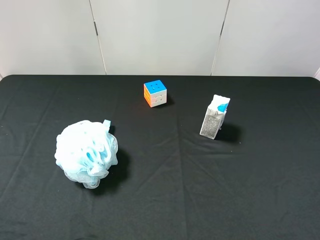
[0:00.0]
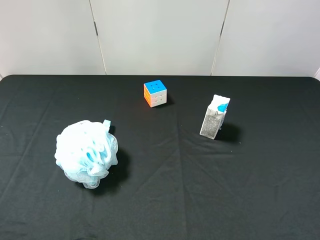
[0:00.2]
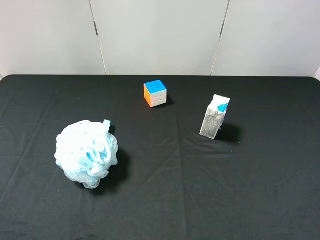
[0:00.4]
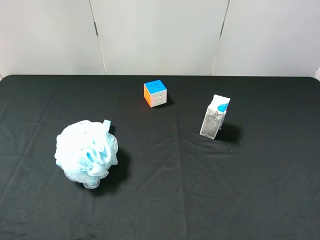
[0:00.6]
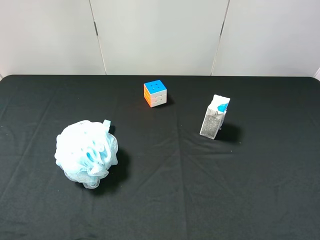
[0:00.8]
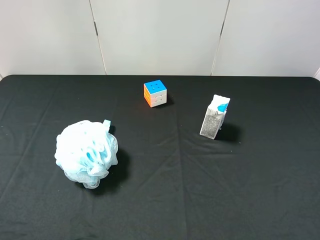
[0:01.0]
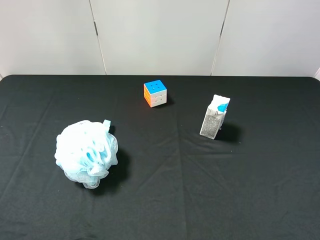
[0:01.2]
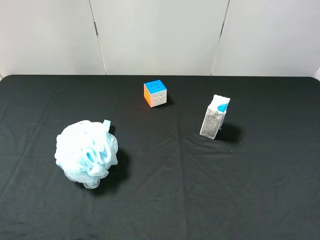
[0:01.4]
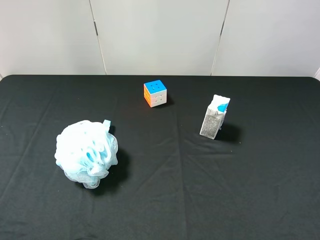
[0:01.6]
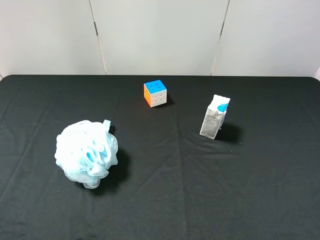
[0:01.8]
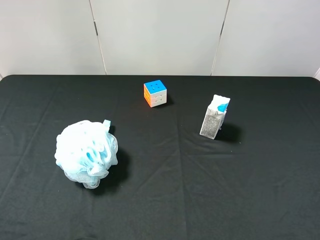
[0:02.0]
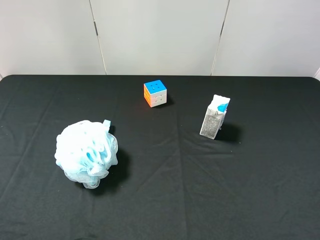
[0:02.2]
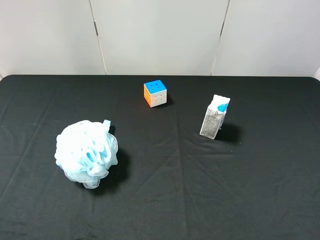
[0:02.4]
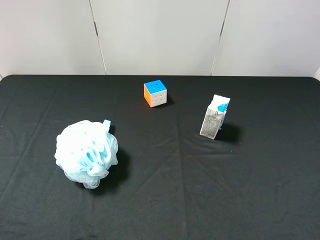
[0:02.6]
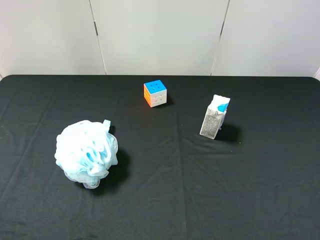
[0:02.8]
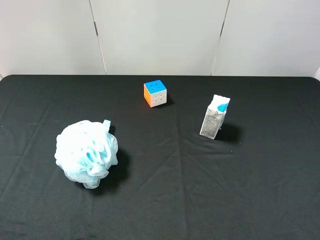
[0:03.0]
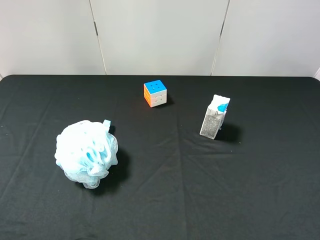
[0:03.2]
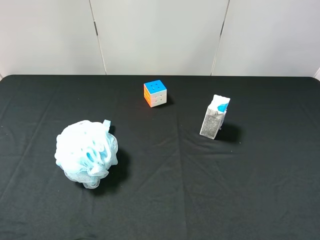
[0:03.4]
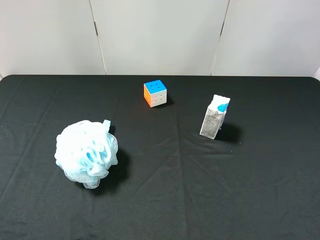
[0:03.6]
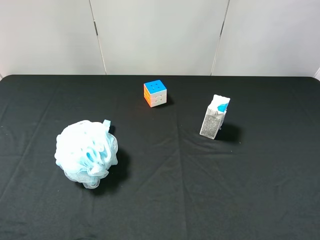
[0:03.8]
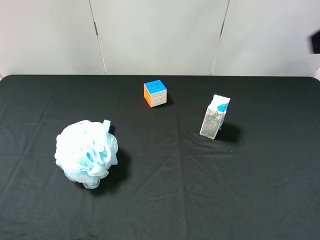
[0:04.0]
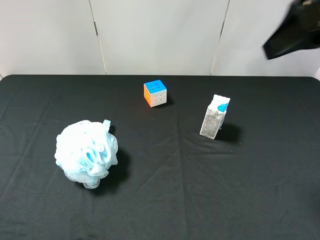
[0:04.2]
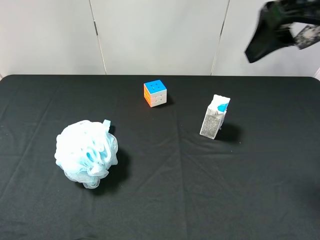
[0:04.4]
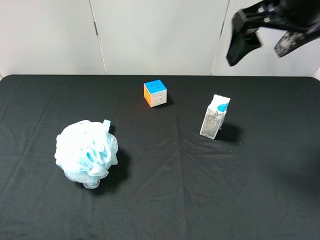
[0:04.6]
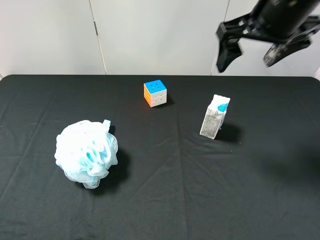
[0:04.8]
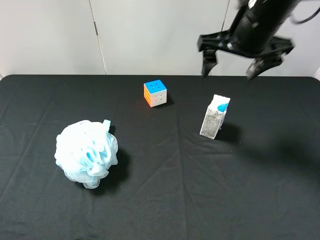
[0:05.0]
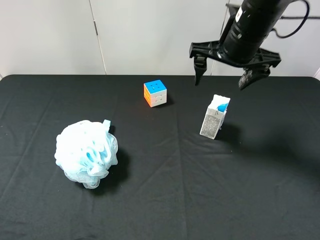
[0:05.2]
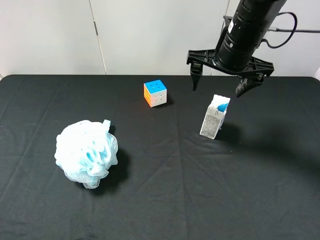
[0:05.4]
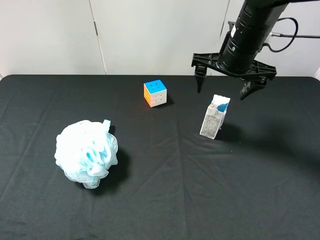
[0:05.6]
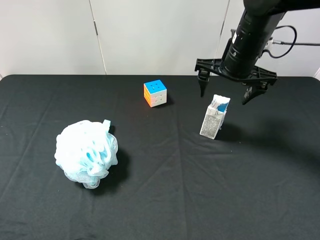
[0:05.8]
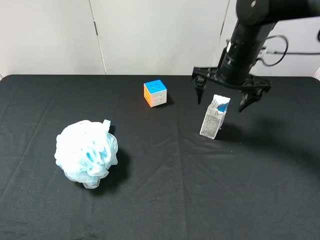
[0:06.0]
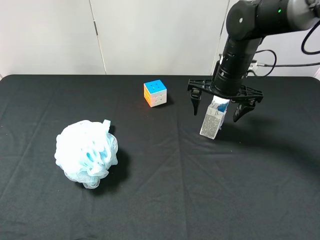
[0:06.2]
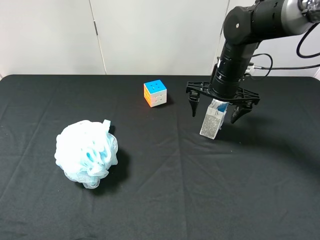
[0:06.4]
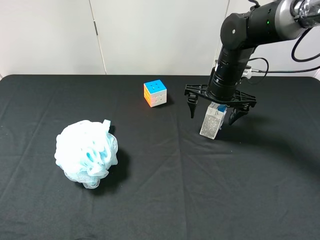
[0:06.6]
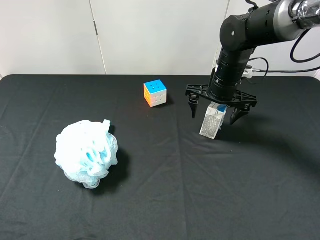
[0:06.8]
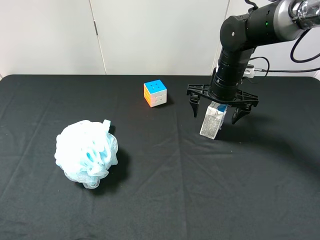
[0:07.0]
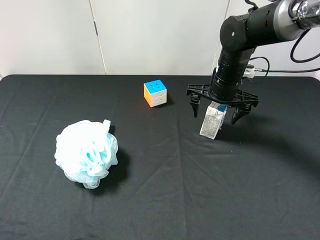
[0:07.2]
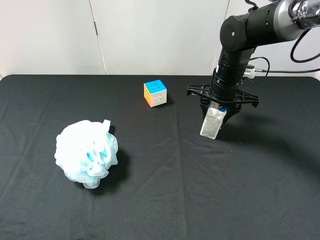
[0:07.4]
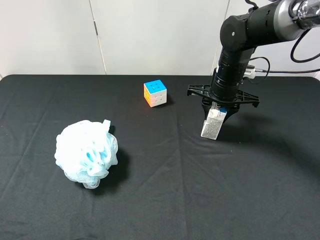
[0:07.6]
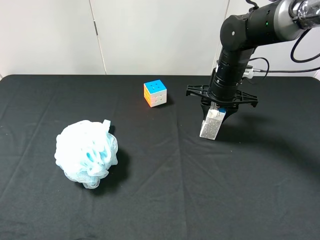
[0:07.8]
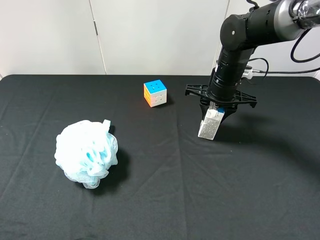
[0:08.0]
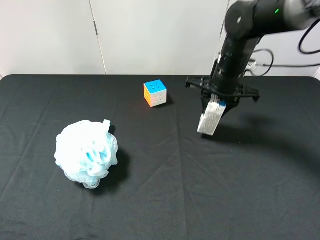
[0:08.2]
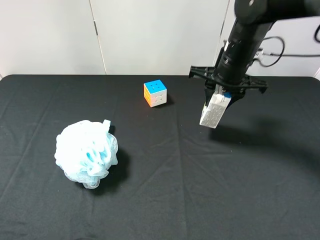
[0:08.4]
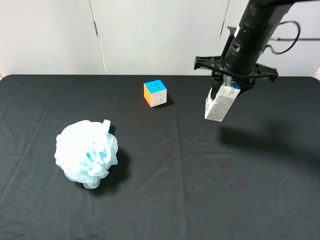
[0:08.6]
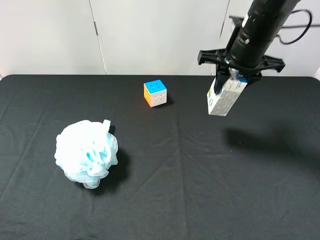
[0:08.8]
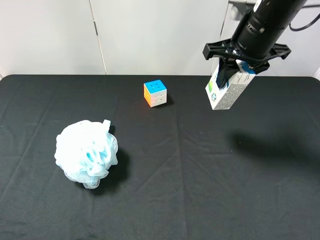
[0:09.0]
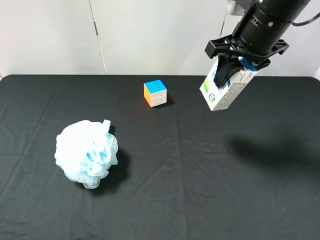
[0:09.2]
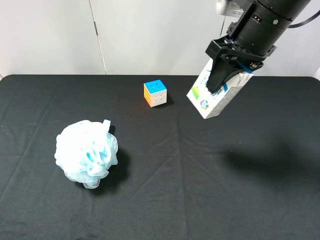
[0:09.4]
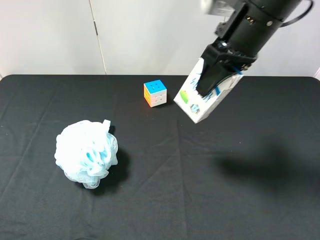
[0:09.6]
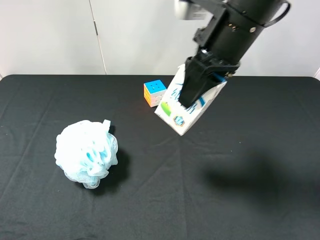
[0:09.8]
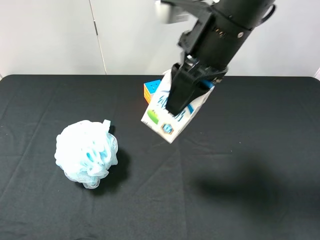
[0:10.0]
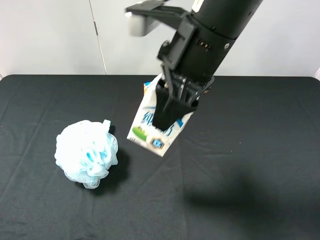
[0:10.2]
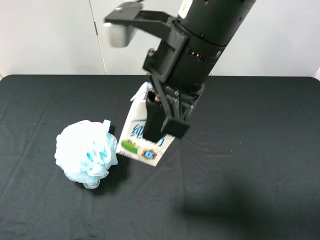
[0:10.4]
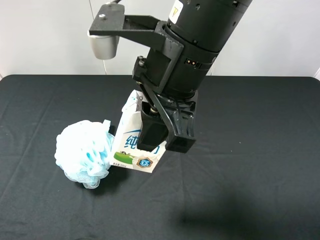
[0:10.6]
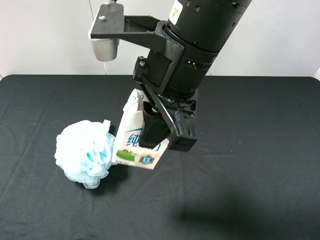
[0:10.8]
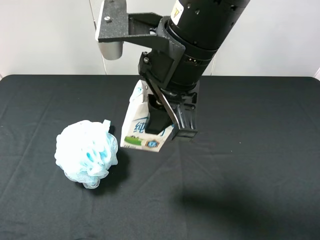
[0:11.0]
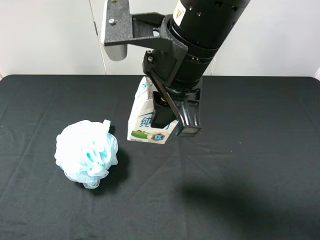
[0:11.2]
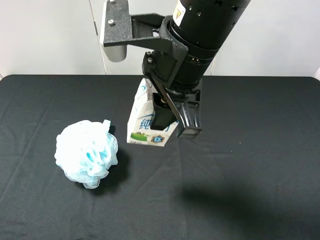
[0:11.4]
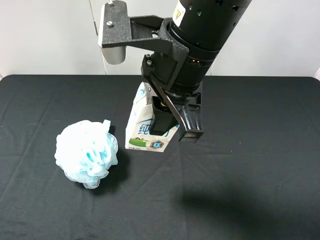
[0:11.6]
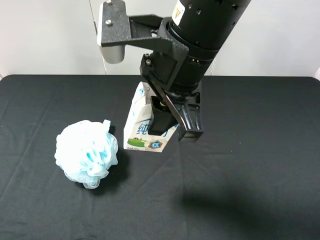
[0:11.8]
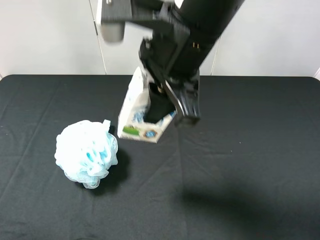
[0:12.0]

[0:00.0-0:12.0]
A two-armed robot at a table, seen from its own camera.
Task of the whole recording: use the right gripper to pick up the item and transfer it from the right gripper to the left gripper.
Step, 0:00.0 to 0:07.6: Use the right gripper to grab the milk on the right side of the table.
0:00.0 to 0:01.6: Both grippers stay about where they are.
0:03.0 to 0:04.4: The right gripper heads forward, to the left and upward, covering some 25 cm.
0:04.4 to 0:06.0: The right gripper moves downward and forward, roughly 20 cm.
0:06.0 to 0:07.6: The right gripper closes its fingers.
0:07.6 to 0:09.0: The right gripper goes roughly 15 cm upward.
0:09.0 to 0:10.4: The right gripper heads to the left and backward, covering some 20 cm.
0:10.4 to 0:12.0: The left gripper shifts some 5 cm forward.

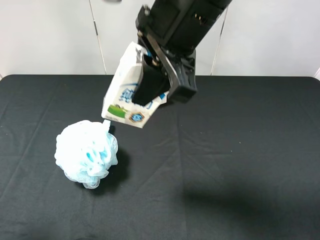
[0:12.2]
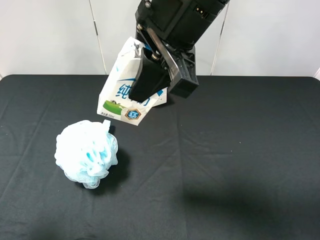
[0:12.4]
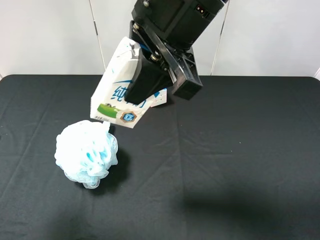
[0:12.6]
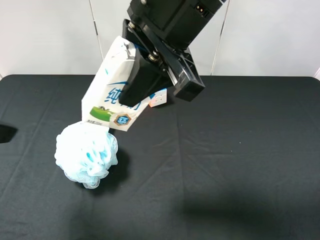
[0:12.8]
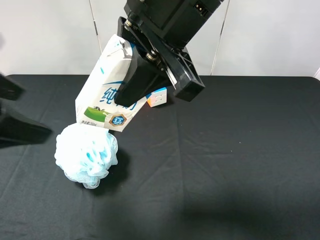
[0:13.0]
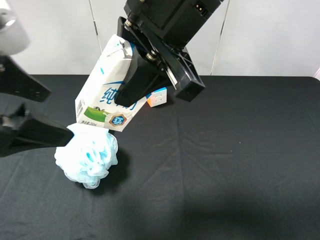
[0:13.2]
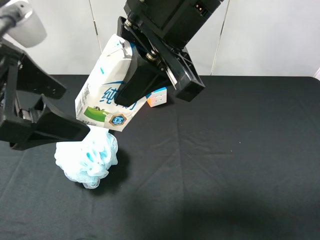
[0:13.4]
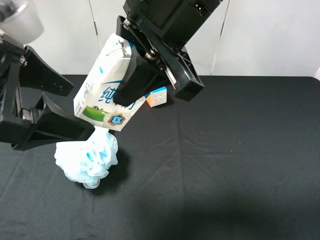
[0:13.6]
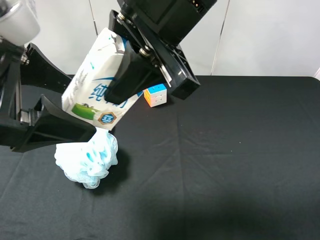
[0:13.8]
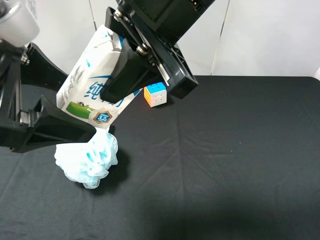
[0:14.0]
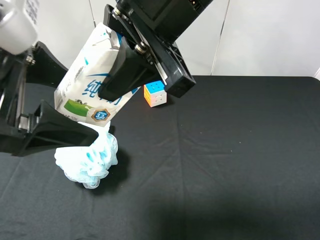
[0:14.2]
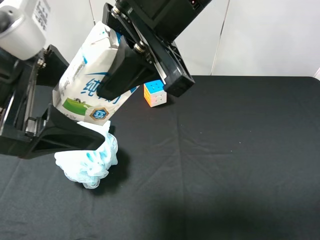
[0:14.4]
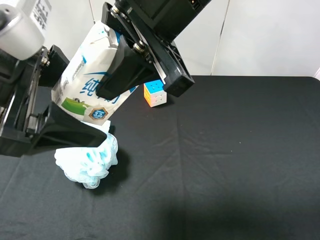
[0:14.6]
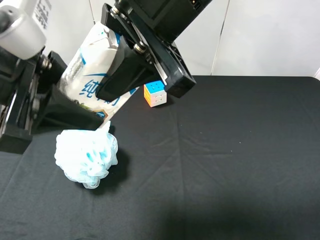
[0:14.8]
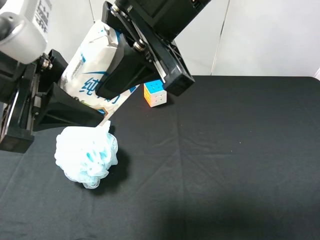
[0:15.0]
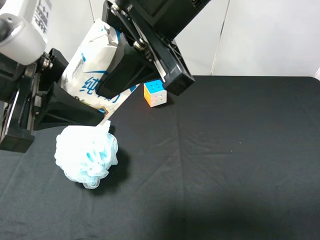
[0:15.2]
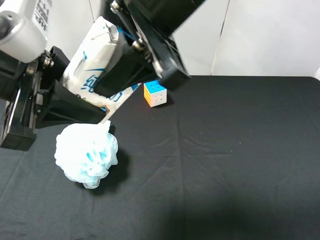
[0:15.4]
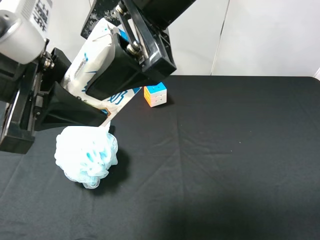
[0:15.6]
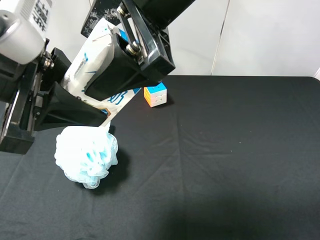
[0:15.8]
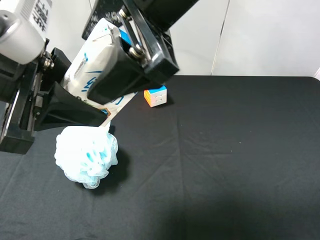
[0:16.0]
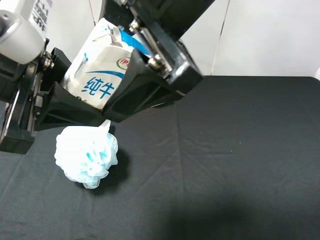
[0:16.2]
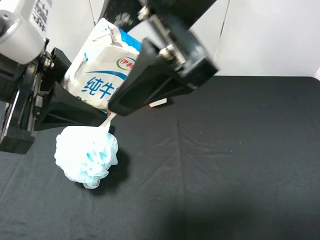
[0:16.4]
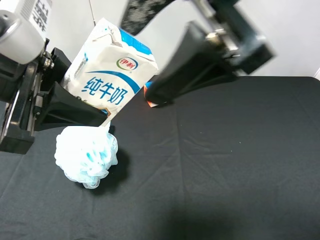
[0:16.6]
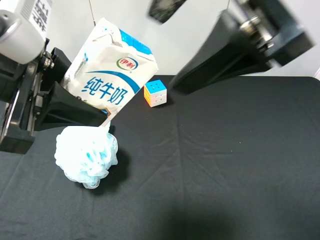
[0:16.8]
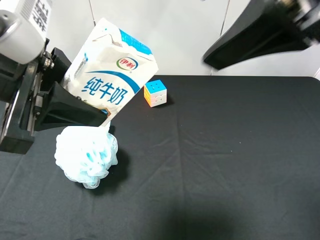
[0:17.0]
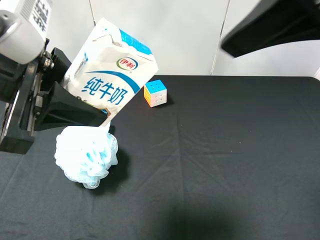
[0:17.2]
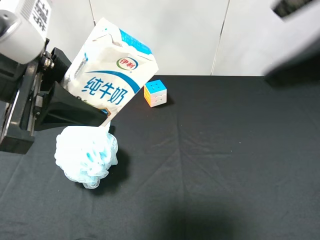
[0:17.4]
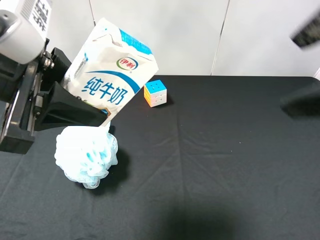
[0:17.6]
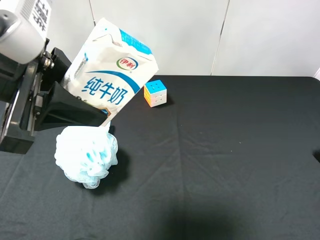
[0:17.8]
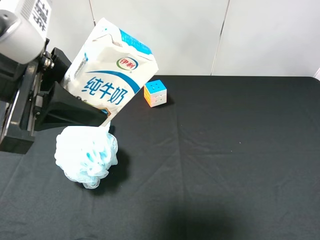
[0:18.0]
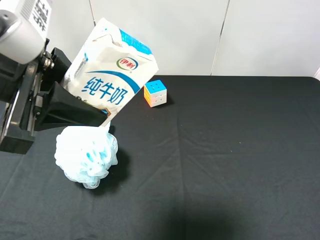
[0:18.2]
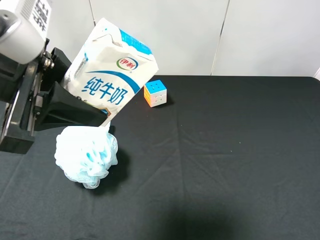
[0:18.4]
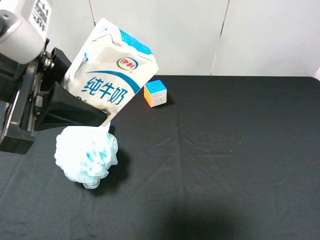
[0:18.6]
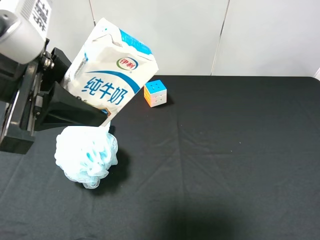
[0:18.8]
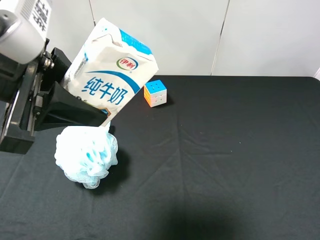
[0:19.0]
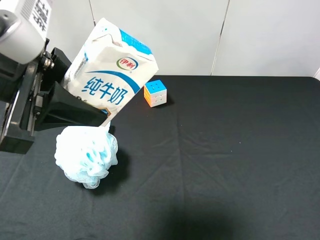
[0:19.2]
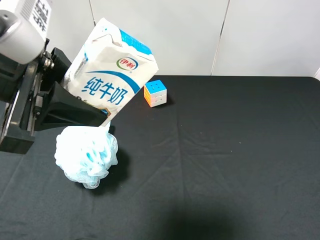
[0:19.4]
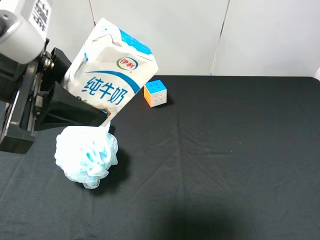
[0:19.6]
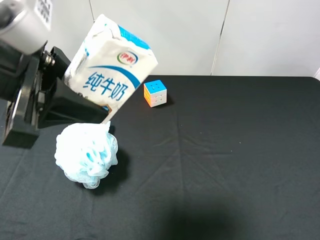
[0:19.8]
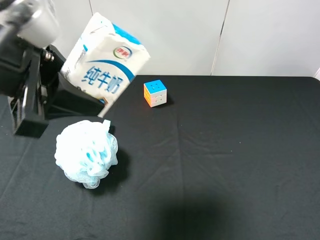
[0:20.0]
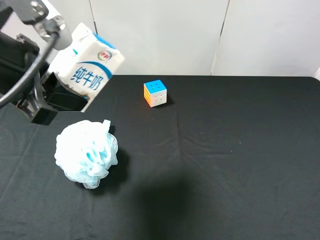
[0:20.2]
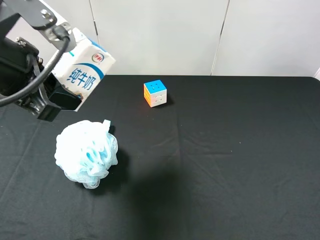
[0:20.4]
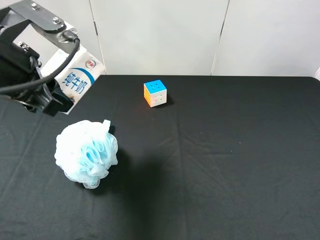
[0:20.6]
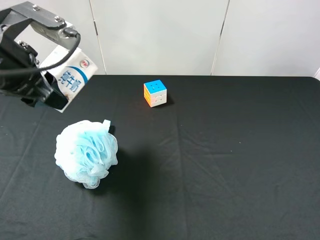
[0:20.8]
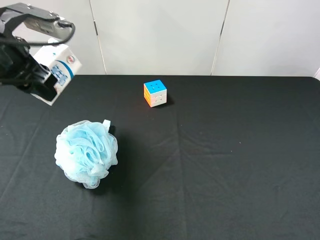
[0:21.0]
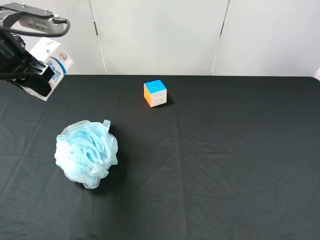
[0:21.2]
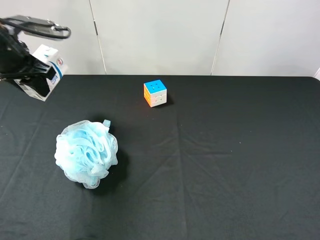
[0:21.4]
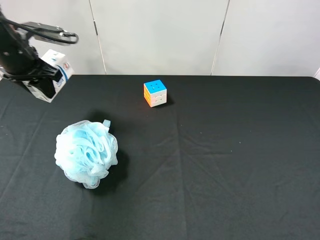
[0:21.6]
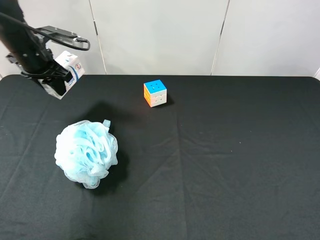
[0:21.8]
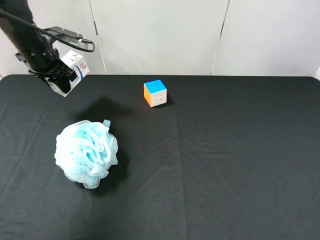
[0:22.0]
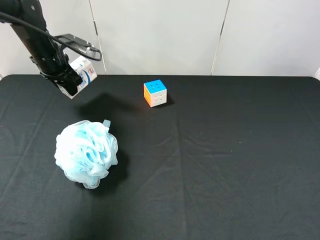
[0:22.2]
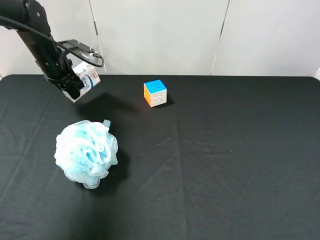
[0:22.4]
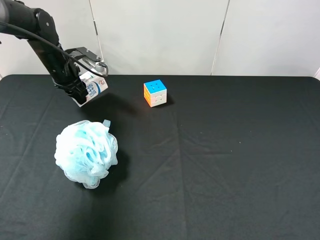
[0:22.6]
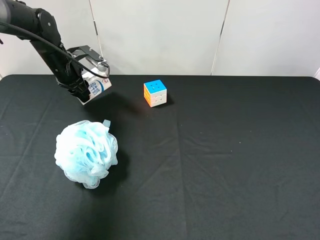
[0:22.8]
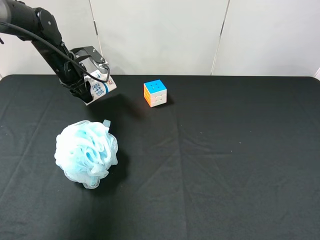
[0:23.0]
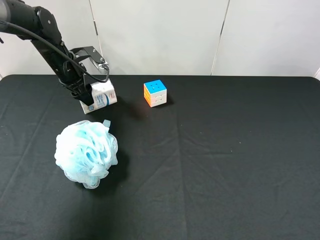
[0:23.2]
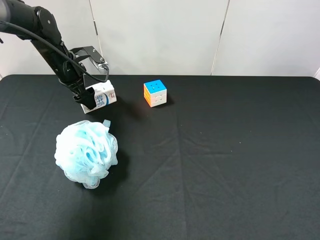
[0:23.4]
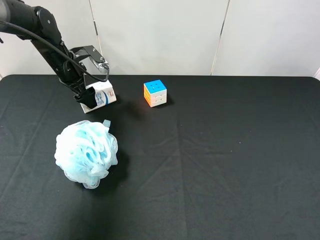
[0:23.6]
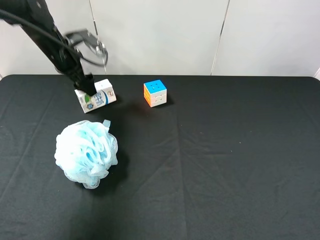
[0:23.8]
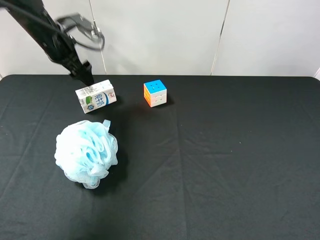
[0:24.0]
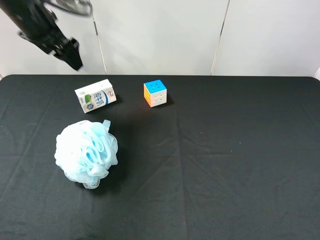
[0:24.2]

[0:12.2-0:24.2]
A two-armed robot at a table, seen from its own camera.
Task of the whole recording: use the right gripper to pick up the item and transfer it from the right gripper to the left gripper.
Step, 0:12.2 to 0:15.8: Pass the milk to the left gripper.
Step, 0:16.0 to 0:23.4: The left gripper places milk on the left side of the table.
0:12.2 to 0:13.8: The left gripper moves to the right and forward, some 15 cm.
0:13.8 to 0:15.2: The left gripper closes its fingers.
0:15.2 to 0:16.6: The right gripper moves about 5 cm, and opens up.
0:16.6 to 0:18.2: The right gripper is displaced to the right, backward and downward by roughly 30 cm.
0:19.8 to 0:21.2: The left gripper moves forward and to the left, roughly 15 cm.
0:21.2 to 0:22.6: The left gripper travels forward and downward by about 20 cm.
0:22.6 to 0:24.2: The left gripper travels upward by some 15 cm, and opens up.
